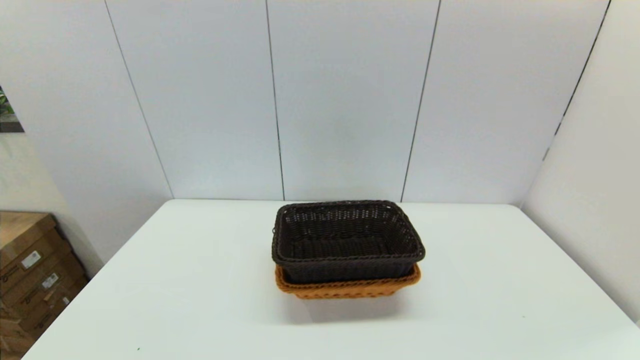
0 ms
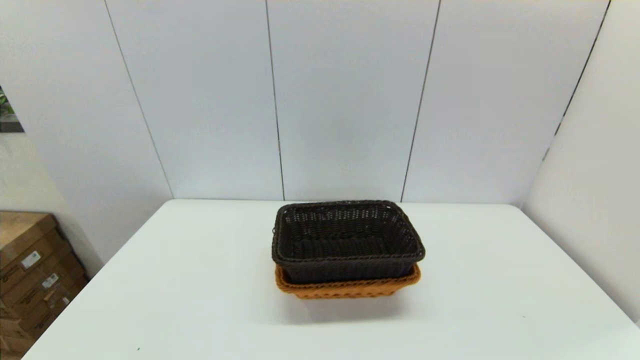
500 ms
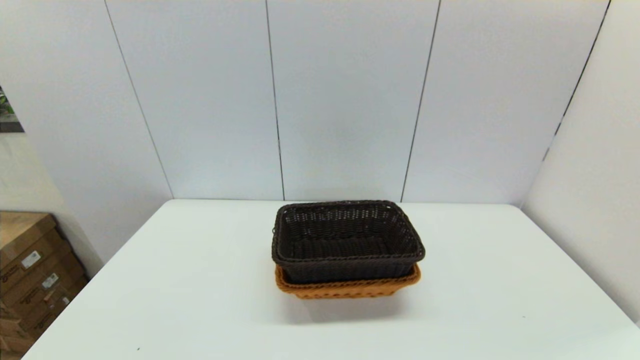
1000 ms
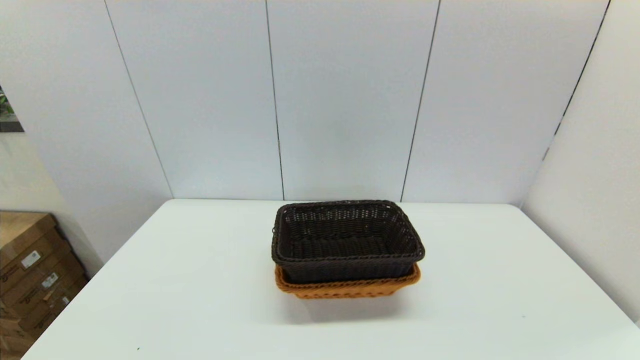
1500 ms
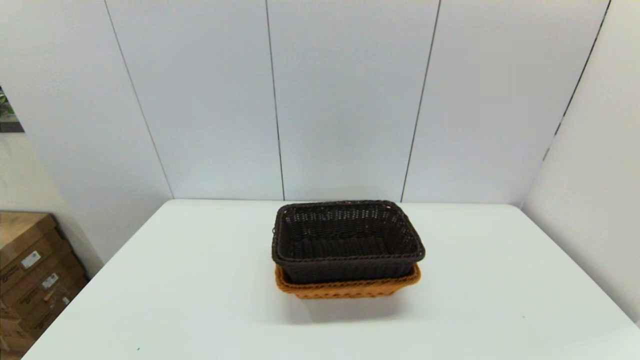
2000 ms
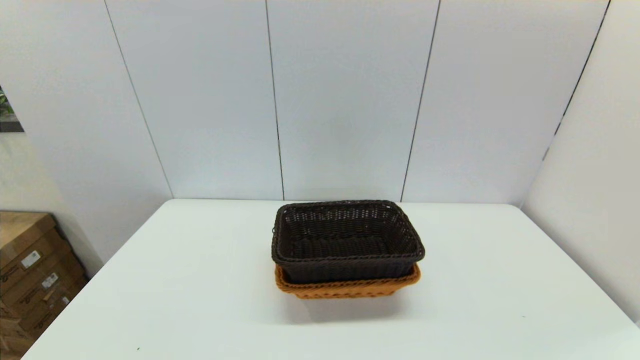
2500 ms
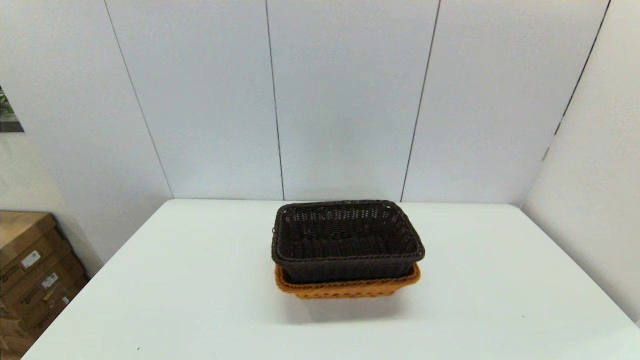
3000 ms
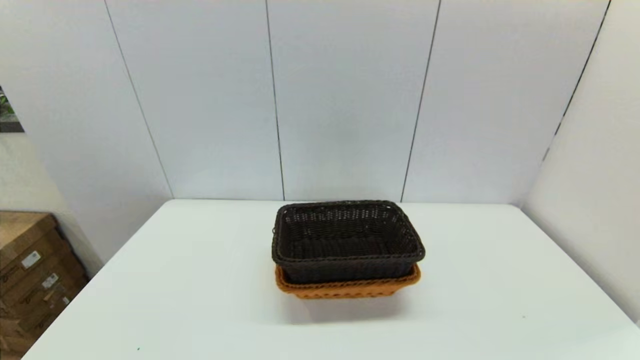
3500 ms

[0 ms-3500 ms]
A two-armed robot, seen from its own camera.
Task of the whole recording: stack a basket on top of another basket.
0 ms to 3500 ms: The two grippers keep their place.
